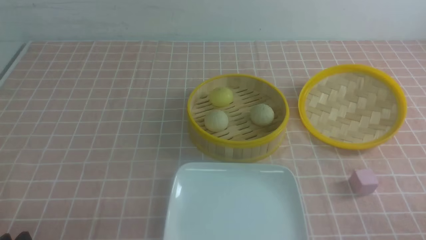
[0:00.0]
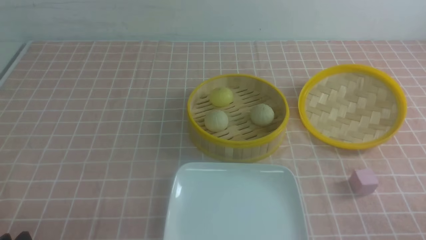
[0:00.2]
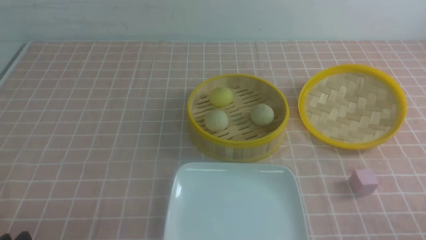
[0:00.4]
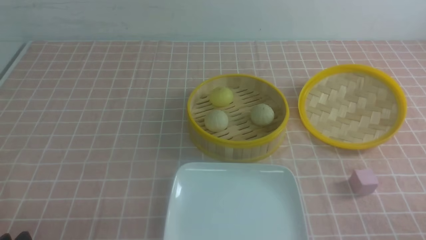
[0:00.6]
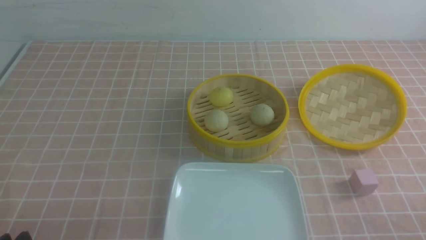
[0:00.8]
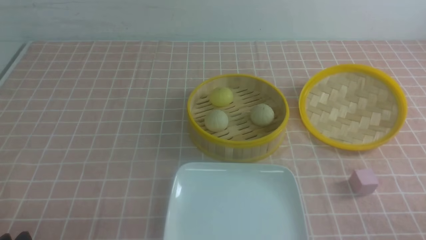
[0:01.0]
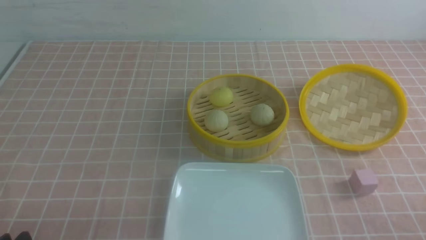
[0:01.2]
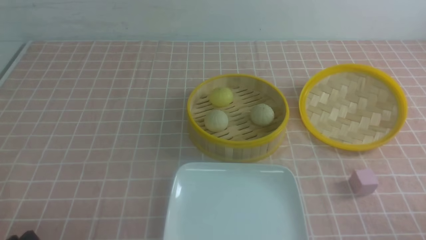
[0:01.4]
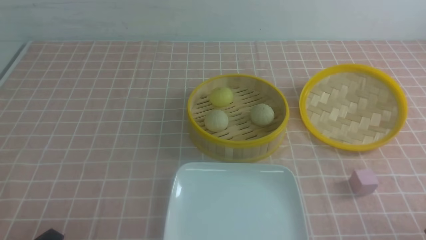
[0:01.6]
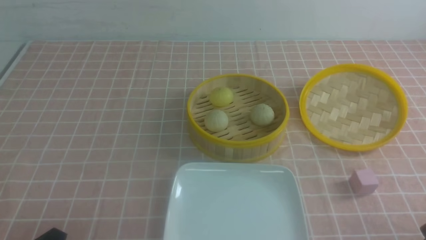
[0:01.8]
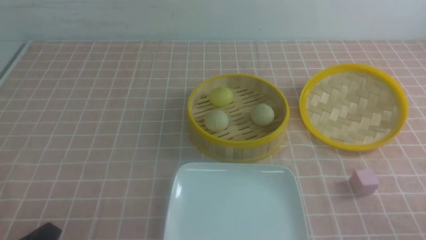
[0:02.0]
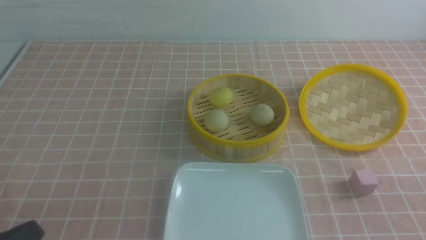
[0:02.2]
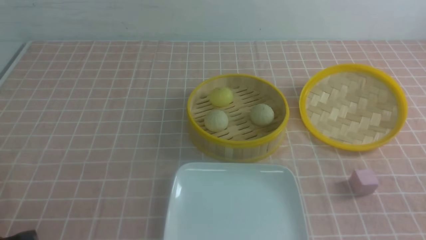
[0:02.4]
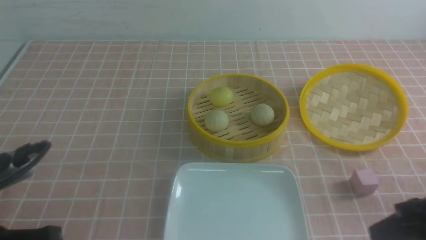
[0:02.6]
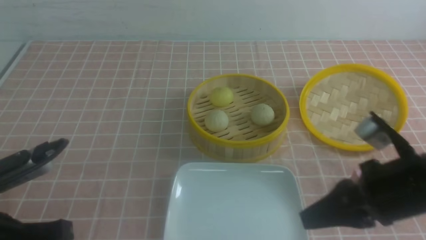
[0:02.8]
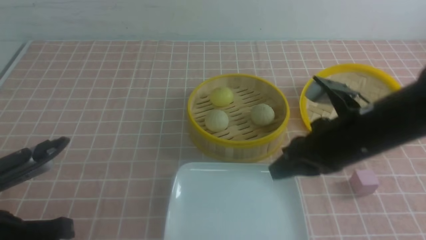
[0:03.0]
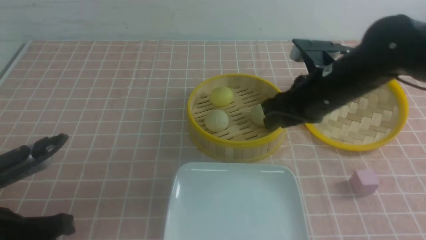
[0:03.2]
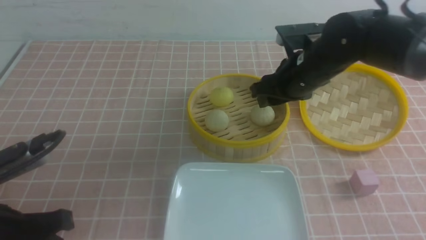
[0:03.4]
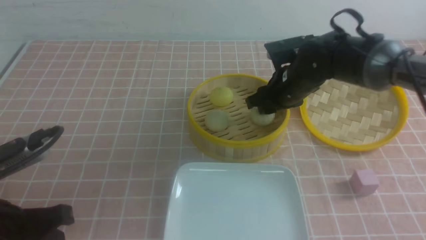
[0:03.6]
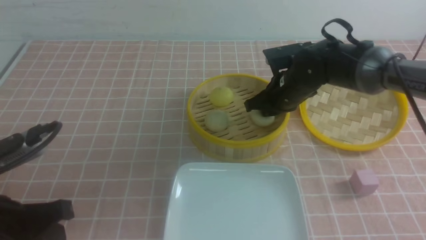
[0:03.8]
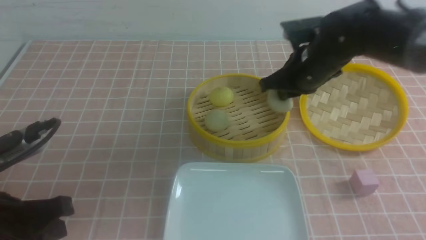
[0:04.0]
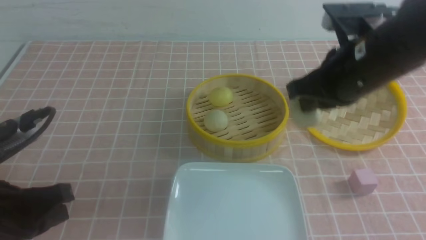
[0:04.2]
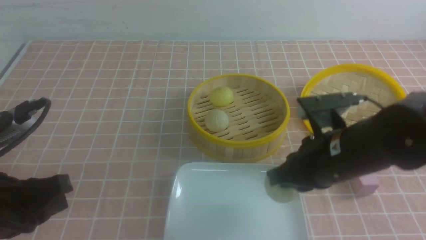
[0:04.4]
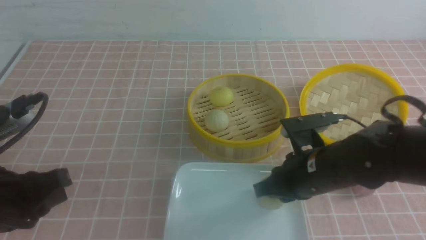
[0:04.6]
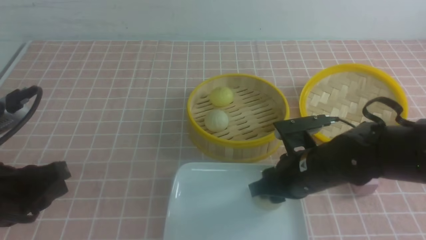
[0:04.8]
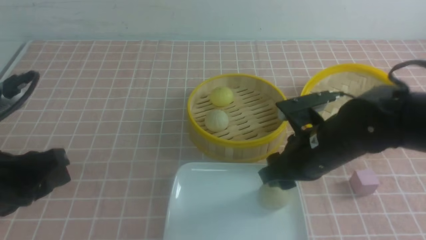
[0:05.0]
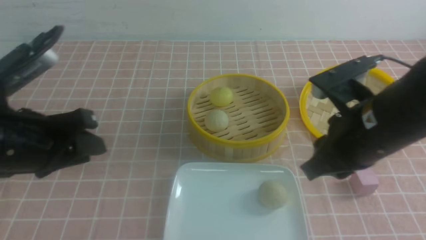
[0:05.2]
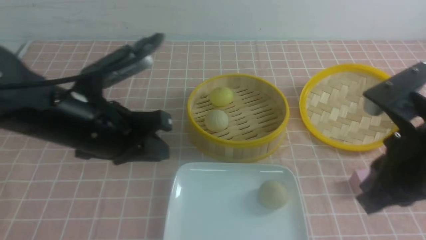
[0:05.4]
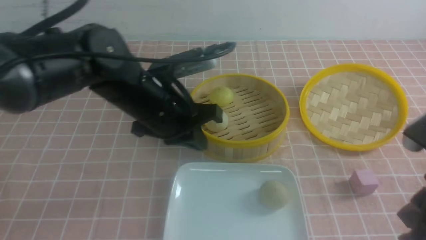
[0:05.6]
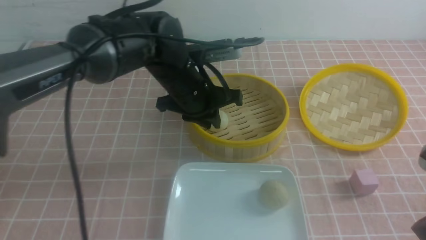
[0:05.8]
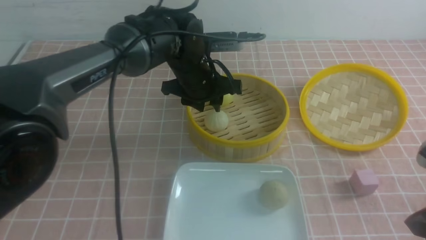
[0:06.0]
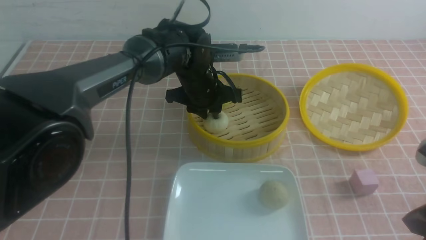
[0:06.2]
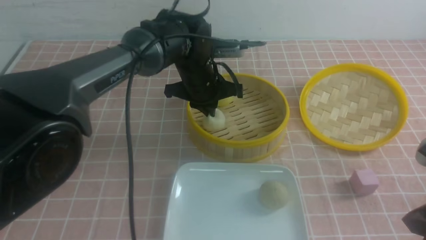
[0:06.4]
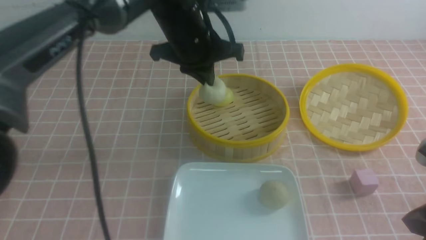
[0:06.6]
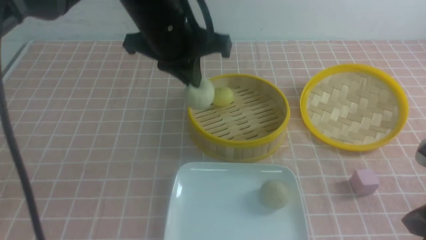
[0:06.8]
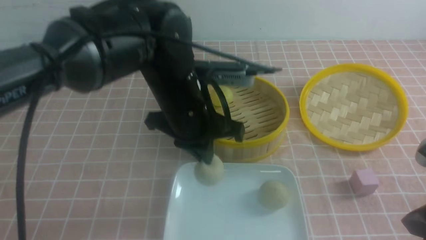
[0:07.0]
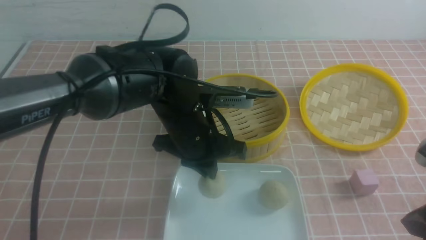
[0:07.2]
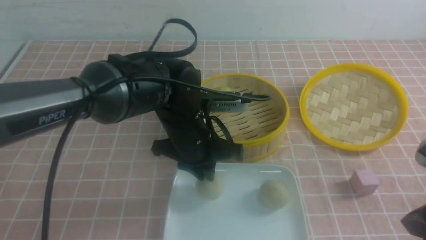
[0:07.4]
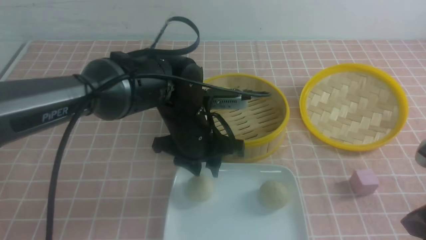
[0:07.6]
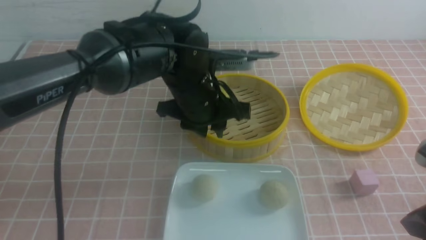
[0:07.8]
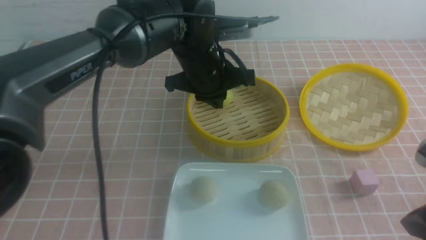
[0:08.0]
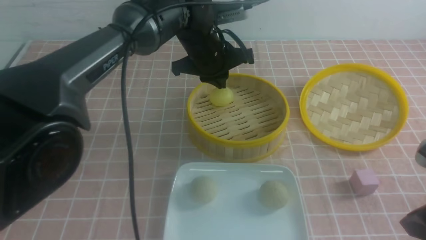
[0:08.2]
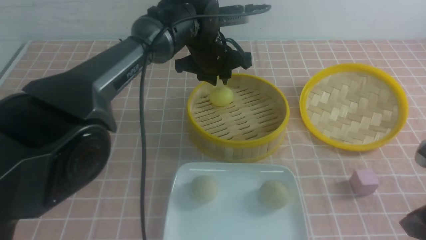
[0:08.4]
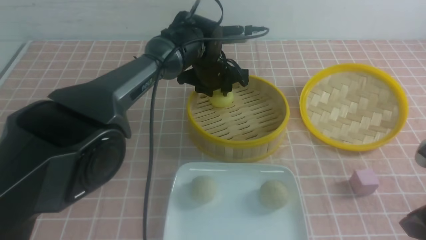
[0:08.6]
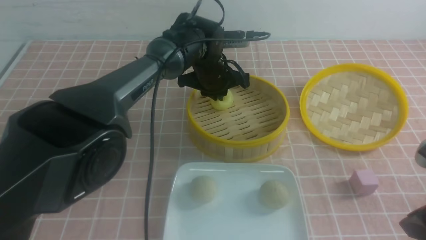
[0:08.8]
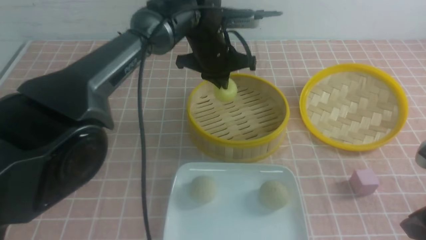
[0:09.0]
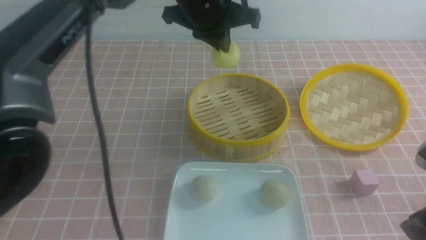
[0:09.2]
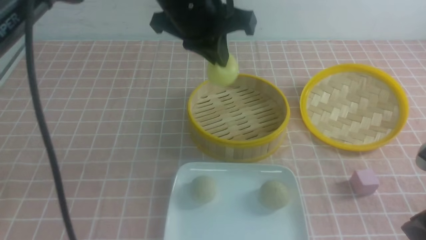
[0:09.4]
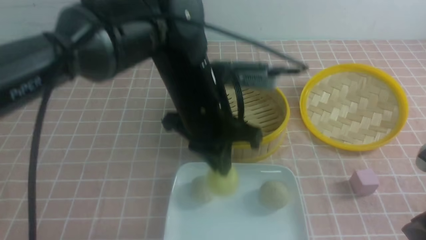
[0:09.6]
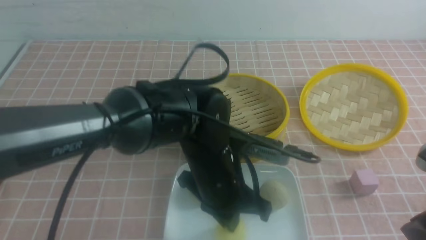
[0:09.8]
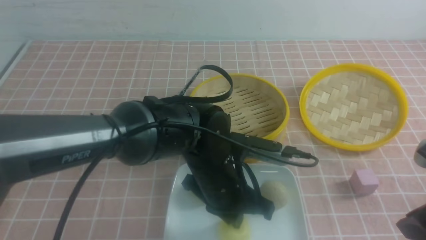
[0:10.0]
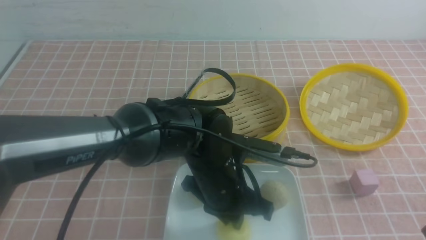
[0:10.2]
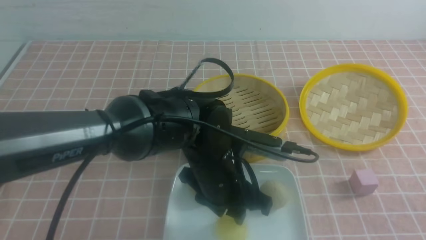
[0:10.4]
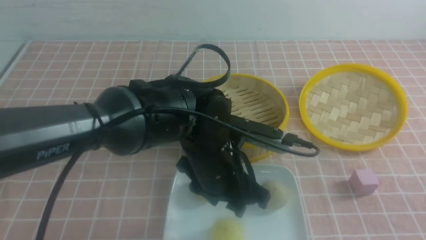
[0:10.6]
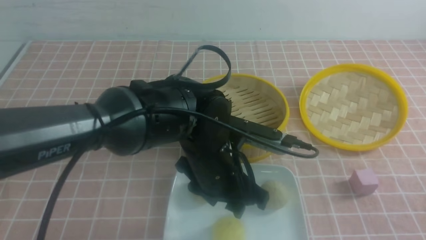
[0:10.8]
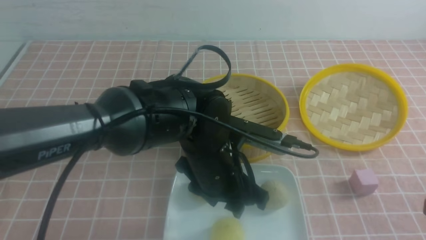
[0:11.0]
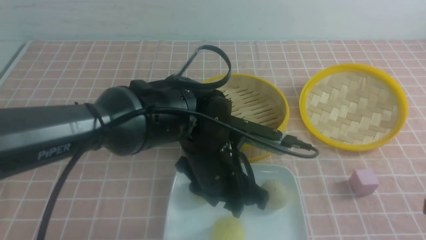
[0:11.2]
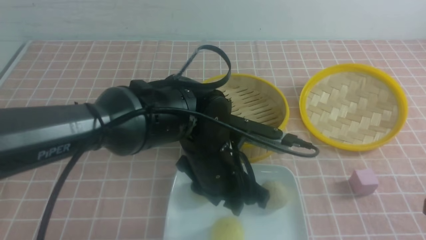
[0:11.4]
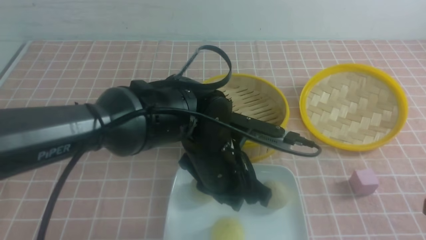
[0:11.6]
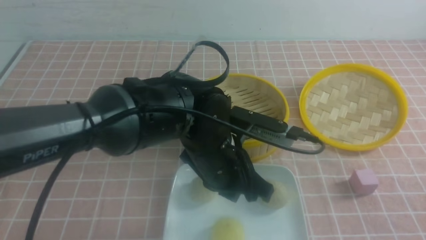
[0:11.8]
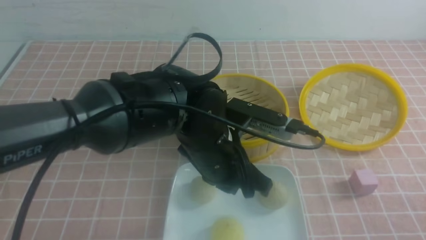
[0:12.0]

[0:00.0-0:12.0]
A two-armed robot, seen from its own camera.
Step, 0:00.0 to 0:03.8: use the right arm to grab the steamed stuffed bun that is closest to it.
Step, 0:04.0 to 0:04.8: use the right arm to put the steamed stuffed bun into the plate.
Step, 0:05.0 to 0:06.2: use the left arm to grab the steamed stuffed bun that is closest to it.
Step, 0:06.4 to 0:07.6: use the left arm to put the steamed stuffed bun into the plate.
Step, 0:07.8 to 0:08.6: use the left arm to grab the steamed stuffed bun that is closest to it.
Step, 0:08.8 to 0:10.2: use the left arm to put the steamed stuffed bun into the plate.
0:01.6 to 0:03.0: The left gripper heads upward and forward, covering some 10 cm, and closes its fingers. The right gripper is displaced forward, to the left and upward by approximately 25 cm, and closes.
0:03.0 to 0:04.4: The right gripper travels forward and back again, roughly 15 cm each way, and opens, then closes once more.
0:04.4 to 0:06.0: The right gripper goes roughly 15 cm backward and to the right, and opens, then closes once more; the left gripper travels forward and to the right by approximately 35 cm.
0:06.0 to 0:07.6: The left gripper shifts roughly 10 cm backward, and closes and opens again.
0:07.6 to 0:09.0: The left gripper travels forward and upward by about 15 cm, and closes up.
0:09.0 to 0:10.4: The right gripper is displaced backward by about 5 cm, while the left gripper travels backward and downward by some 20 cm, and opens up.
0:10.4 to 0:12.0: The left gripper closes its fingers. Meanwhile the right gripper travels downward by some 10 cm.

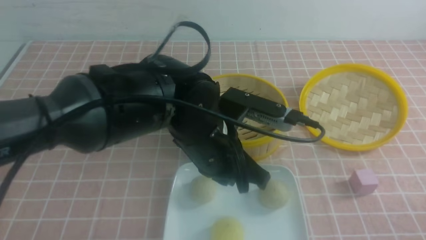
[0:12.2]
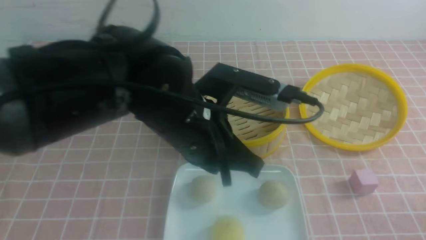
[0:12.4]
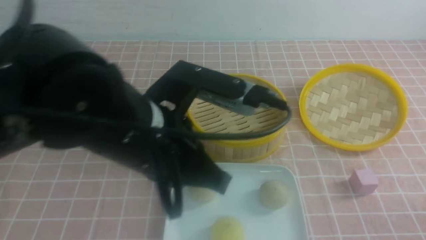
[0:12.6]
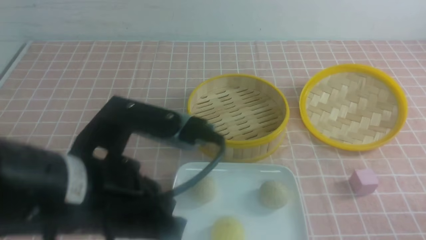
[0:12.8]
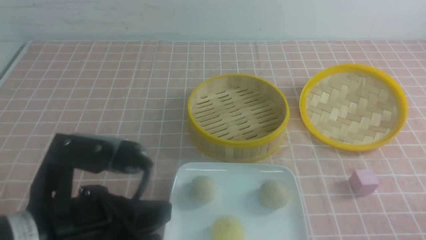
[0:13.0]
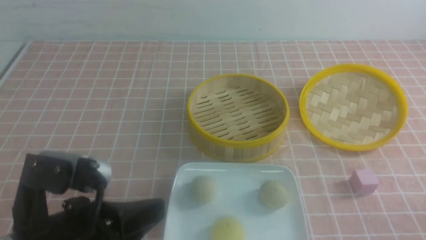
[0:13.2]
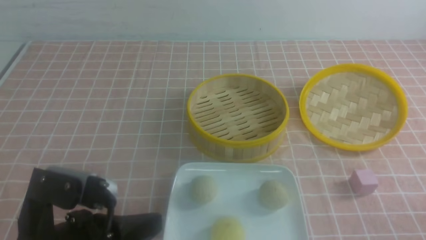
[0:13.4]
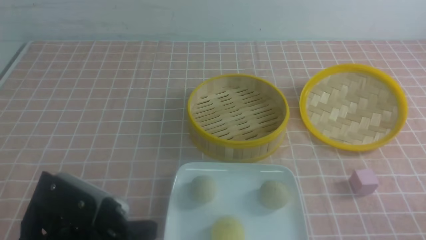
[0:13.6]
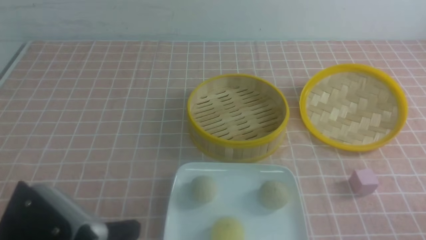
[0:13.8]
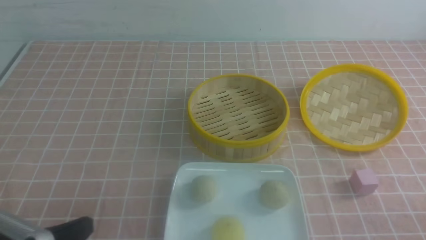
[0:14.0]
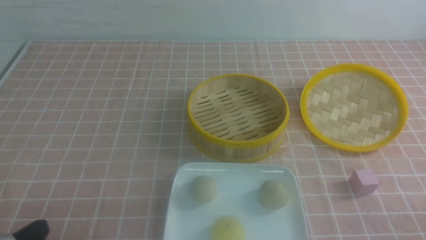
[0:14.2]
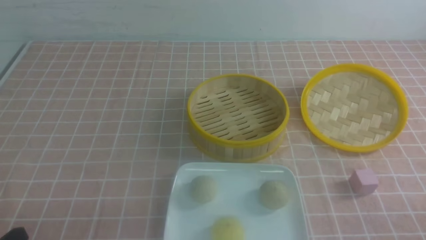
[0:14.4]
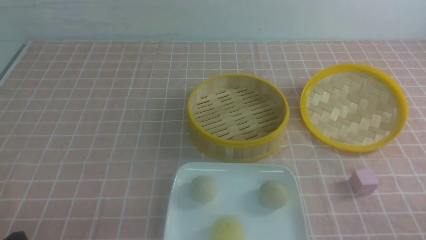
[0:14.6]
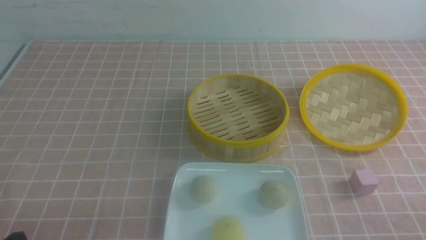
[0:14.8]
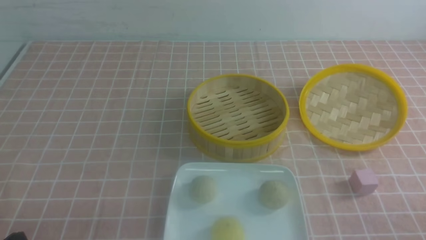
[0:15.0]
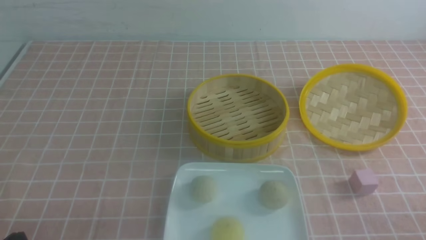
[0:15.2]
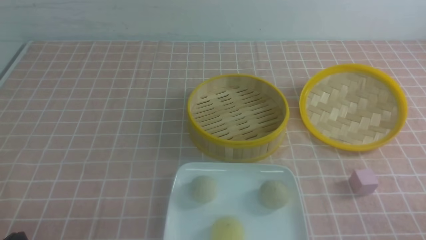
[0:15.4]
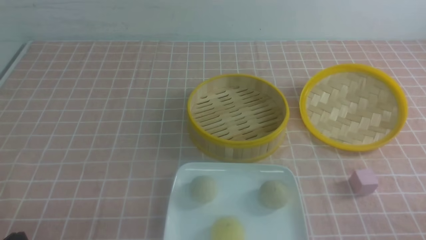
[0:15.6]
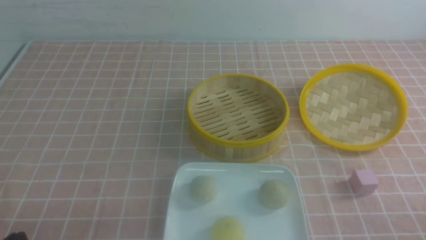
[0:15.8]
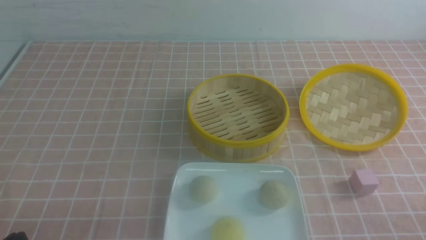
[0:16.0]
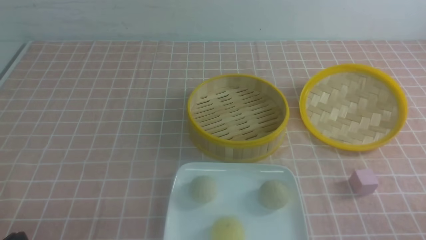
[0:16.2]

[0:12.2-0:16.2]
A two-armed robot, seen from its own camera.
0:12.2 to 0:13.6: The left gripper is displaced to the left and backward by some 20 cm.
0:13.6 to 0:14.8: The left gripper shifts some 10 cm to the left and downward.
0:14.8 to 0:16.2: Neither gripper changes place.
